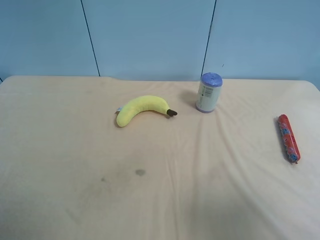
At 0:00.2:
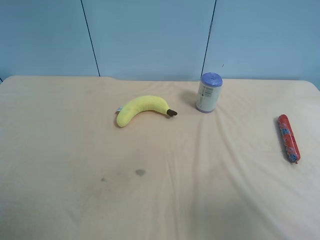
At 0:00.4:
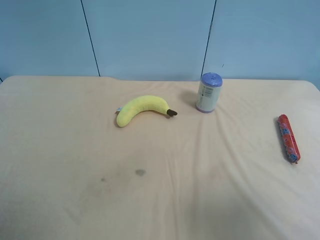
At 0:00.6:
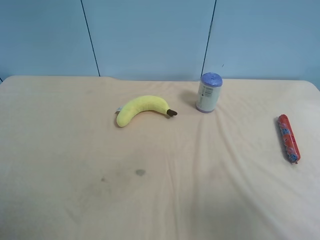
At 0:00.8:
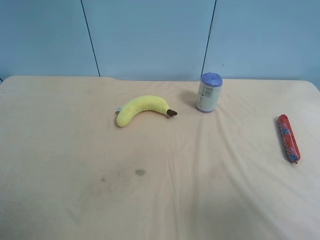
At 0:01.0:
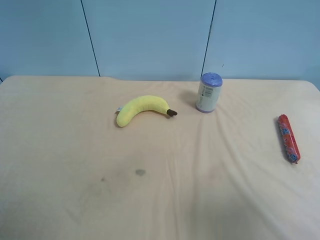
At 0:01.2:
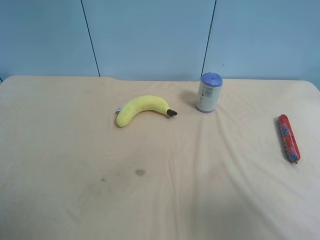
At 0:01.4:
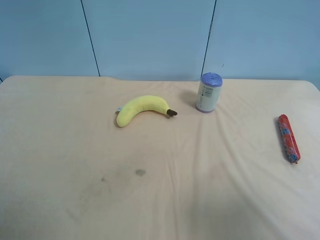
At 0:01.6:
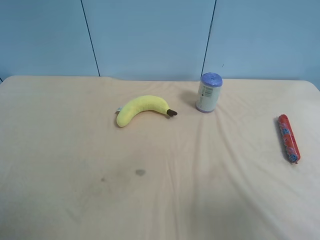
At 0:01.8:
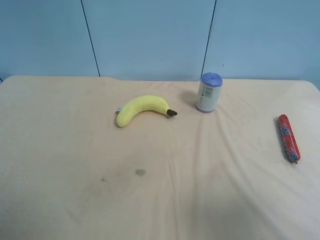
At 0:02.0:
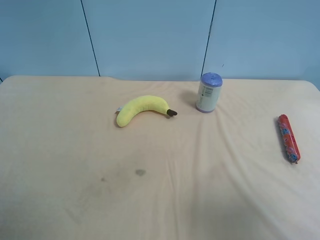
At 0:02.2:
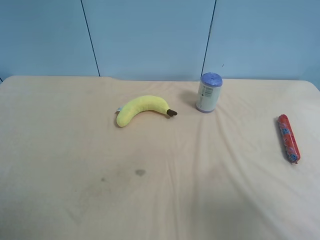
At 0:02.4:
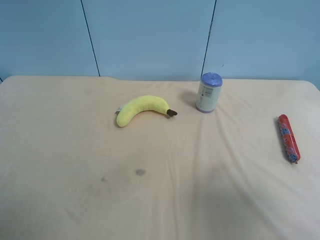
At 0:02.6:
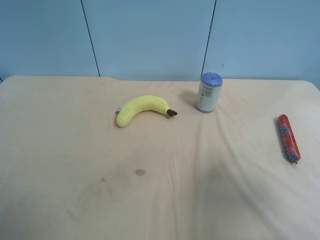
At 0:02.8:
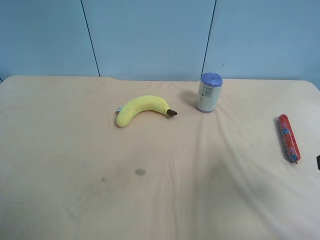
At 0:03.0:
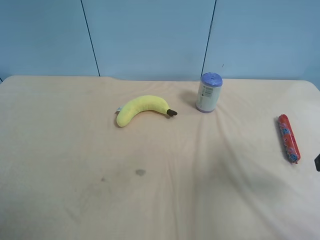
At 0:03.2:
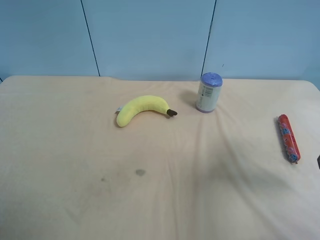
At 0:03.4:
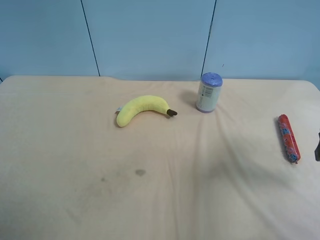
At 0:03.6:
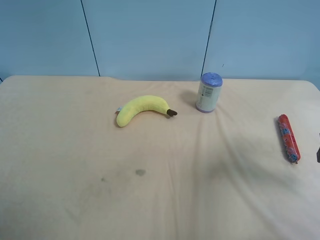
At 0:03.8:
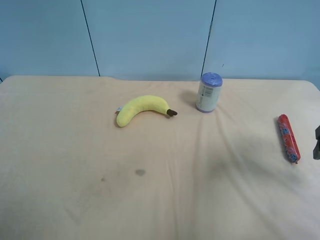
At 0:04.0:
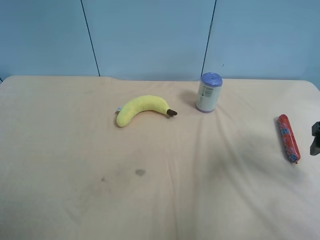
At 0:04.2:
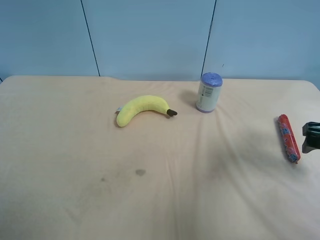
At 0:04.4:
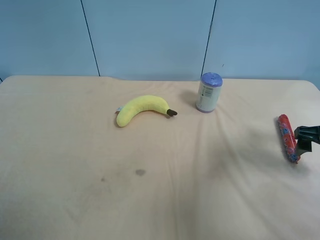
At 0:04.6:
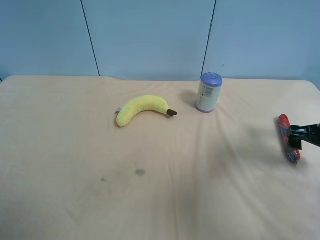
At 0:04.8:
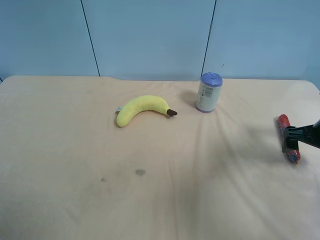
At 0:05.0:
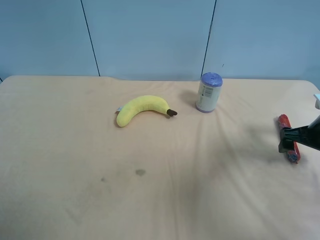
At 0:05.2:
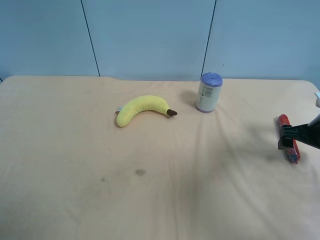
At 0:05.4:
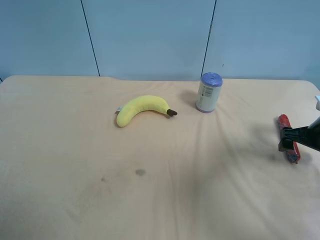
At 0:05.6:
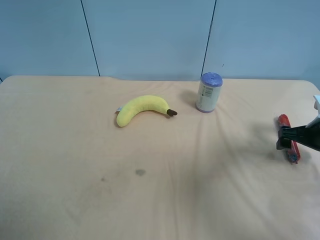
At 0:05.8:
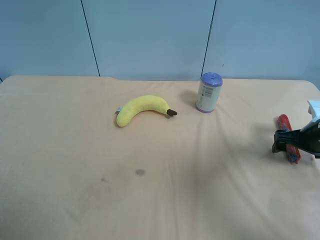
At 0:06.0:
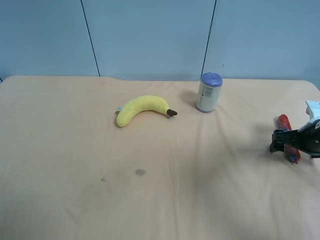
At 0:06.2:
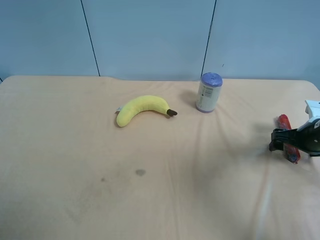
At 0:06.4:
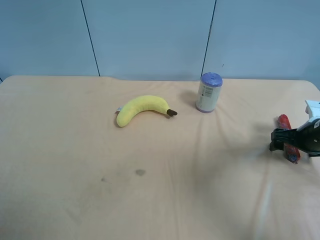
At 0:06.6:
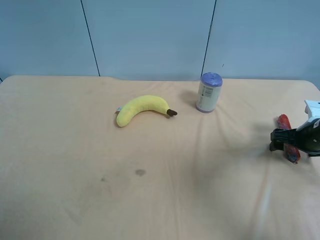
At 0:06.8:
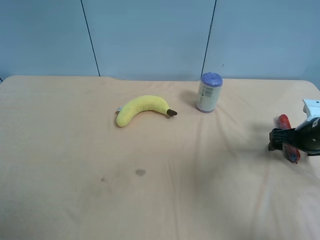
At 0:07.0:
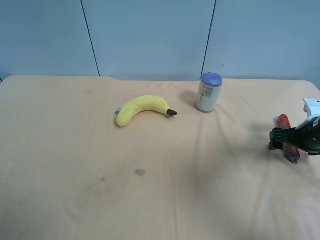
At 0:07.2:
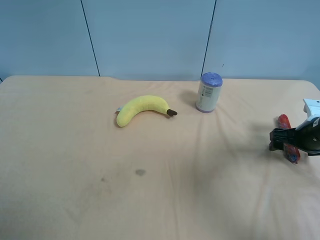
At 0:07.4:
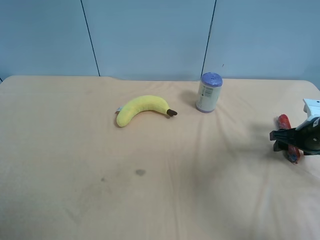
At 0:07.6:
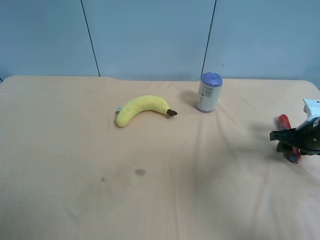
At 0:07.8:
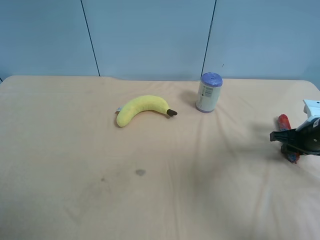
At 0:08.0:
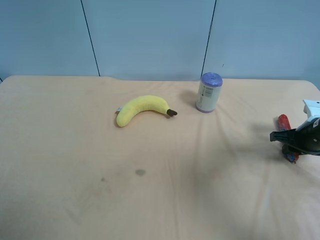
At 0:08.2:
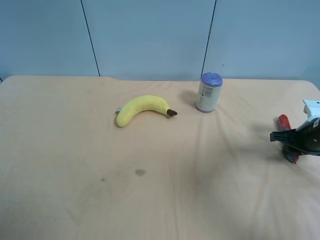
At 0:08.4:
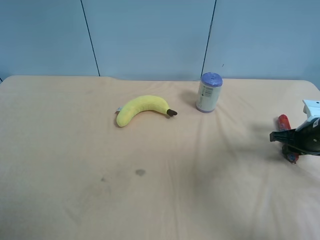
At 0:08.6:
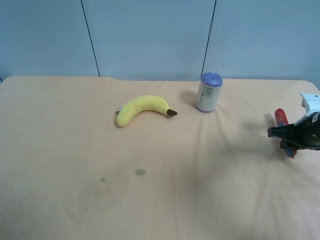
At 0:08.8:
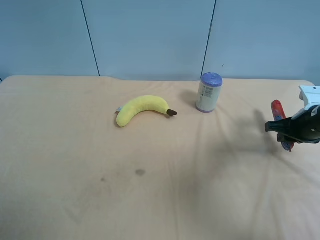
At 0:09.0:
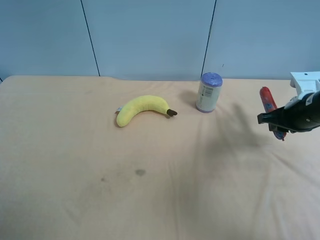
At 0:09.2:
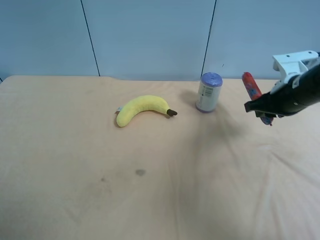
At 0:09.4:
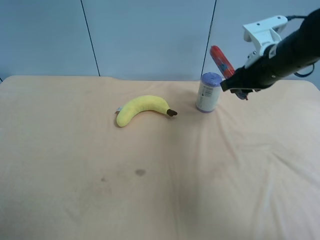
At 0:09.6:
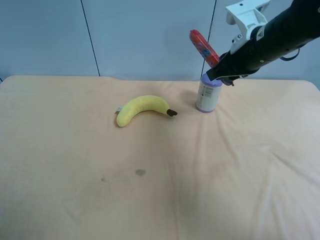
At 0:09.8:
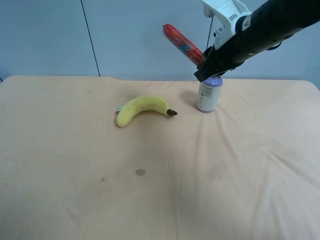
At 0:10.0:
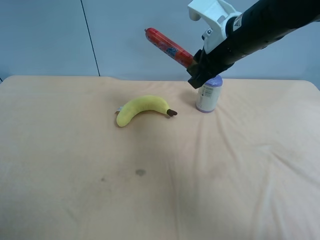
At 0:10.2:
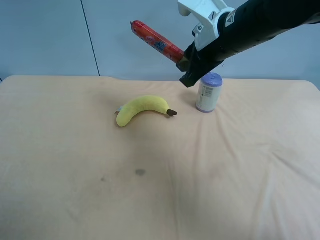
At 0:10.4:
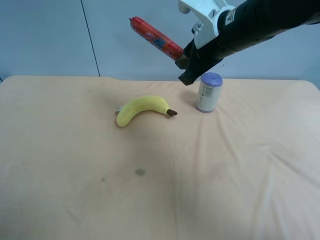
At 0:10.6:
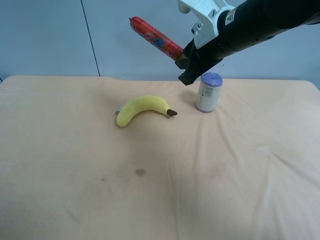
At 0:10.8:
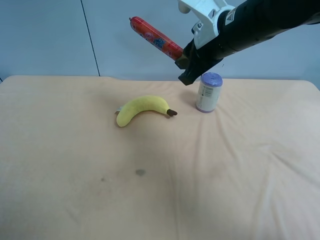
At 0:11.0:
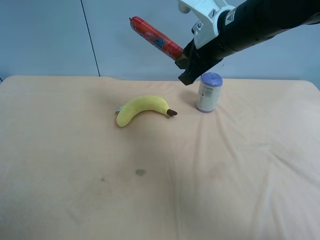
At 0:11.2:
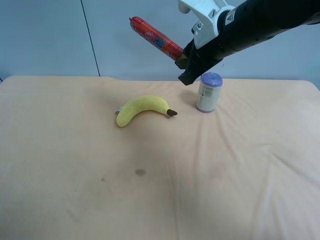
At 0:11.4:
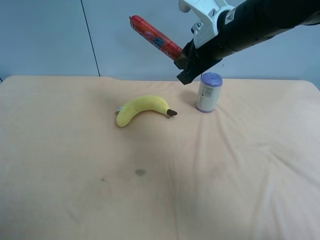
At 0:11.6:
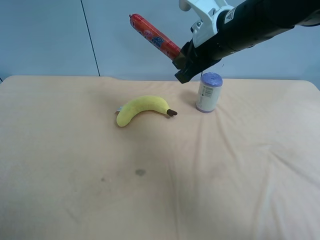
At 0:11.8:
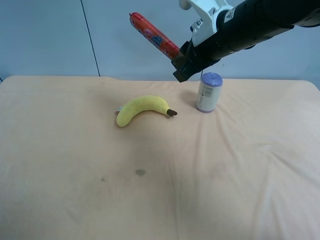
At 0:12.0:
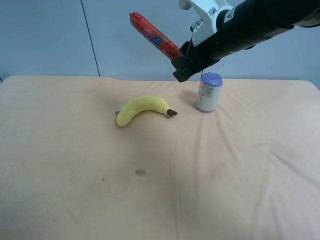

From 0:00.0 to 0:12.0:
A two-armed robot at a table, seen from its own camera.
Task of the whole recording: use the right gripper to pick up the item and transfer it from the right gripper to the left gripper.
From 0:00.0 to 0:01.6: Both grippers stay about where they are.
From 0:01.6 to 0:03.0: The right gripper goes about 15 cm forward.
From 0:03.0 to 0:04.4: The right gripper moves forward, downward and to the right, about 15 cm.
From 0:04.4 to 0:06.0: The right gripper shifts roughly 5 cm downward.
From 0:06.0 to 0:07.6: The right gripper closes up.
From 0:07.6 to 0:09.0: The right gripper shifts approximately 10 cm upward and to the left.
From 0:09.0 to 0:10.4: The right gripper shifts about 20 cm to the left and upward.
From 0:10.4 to 0:12.0: The grippers move only a little.

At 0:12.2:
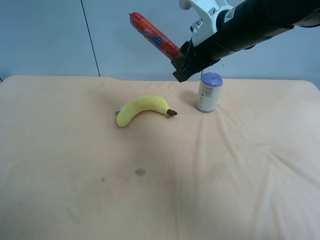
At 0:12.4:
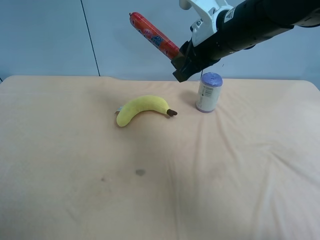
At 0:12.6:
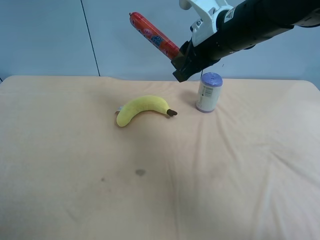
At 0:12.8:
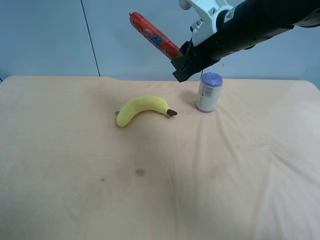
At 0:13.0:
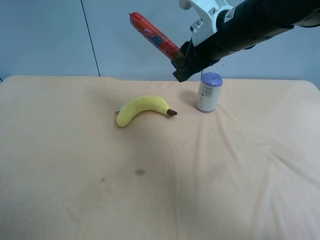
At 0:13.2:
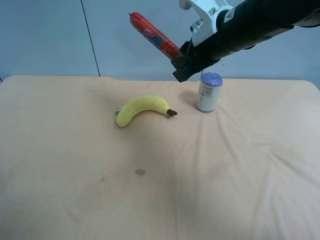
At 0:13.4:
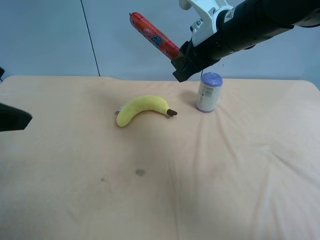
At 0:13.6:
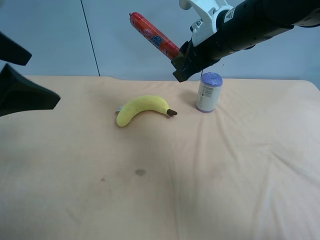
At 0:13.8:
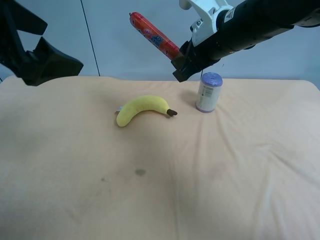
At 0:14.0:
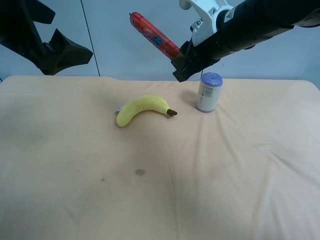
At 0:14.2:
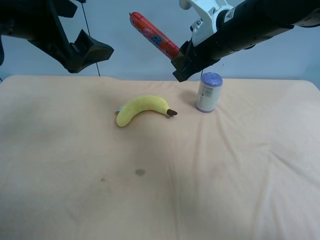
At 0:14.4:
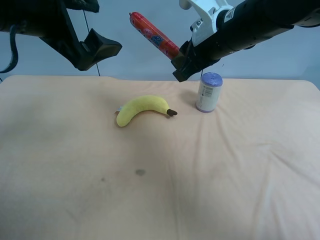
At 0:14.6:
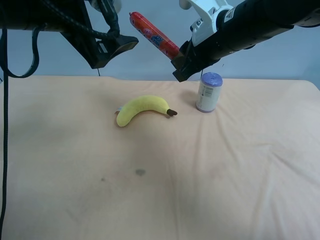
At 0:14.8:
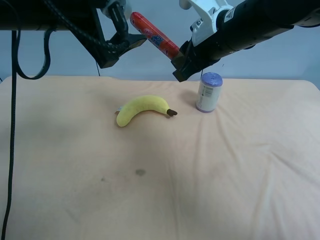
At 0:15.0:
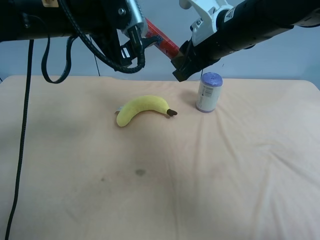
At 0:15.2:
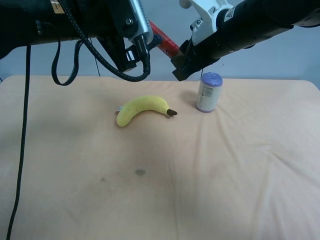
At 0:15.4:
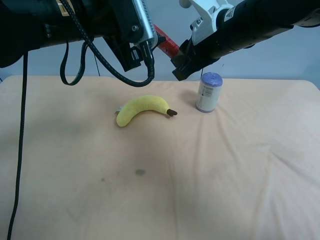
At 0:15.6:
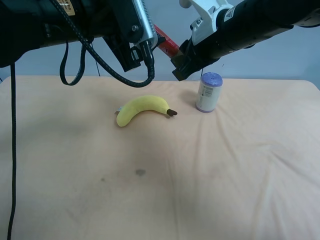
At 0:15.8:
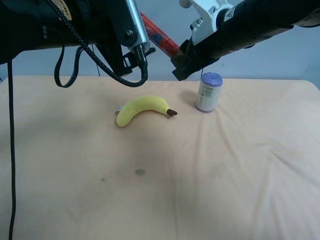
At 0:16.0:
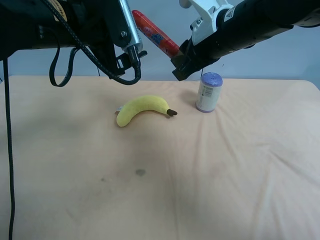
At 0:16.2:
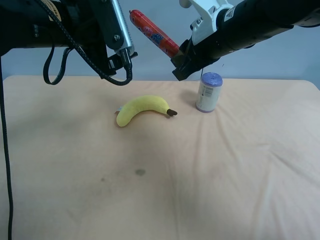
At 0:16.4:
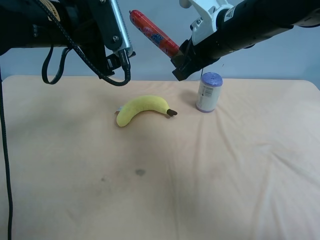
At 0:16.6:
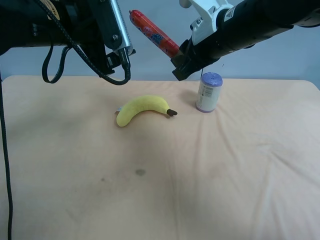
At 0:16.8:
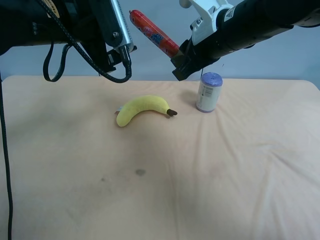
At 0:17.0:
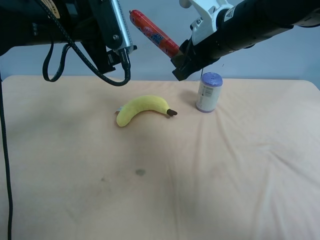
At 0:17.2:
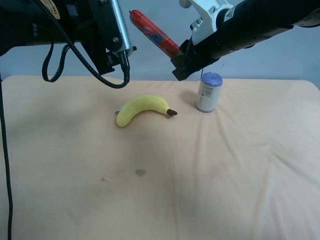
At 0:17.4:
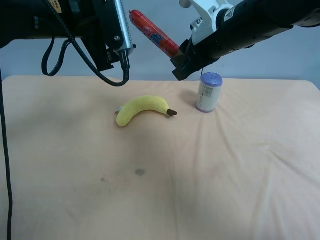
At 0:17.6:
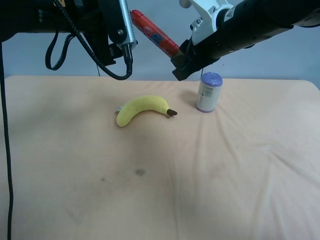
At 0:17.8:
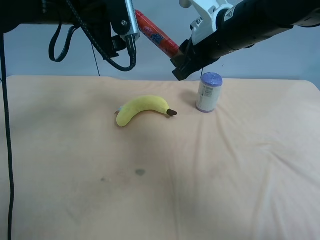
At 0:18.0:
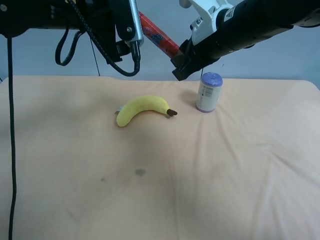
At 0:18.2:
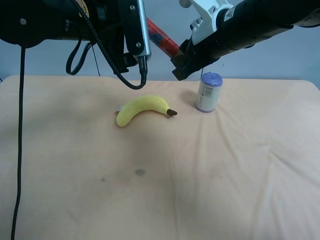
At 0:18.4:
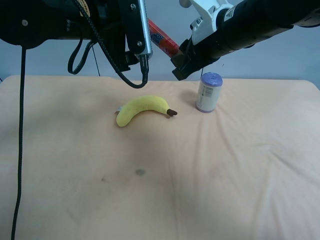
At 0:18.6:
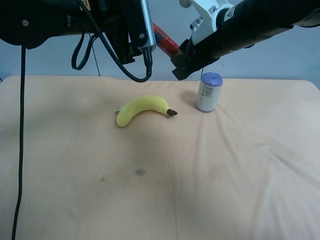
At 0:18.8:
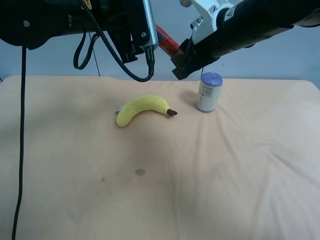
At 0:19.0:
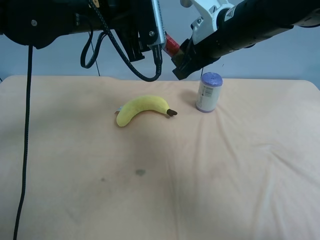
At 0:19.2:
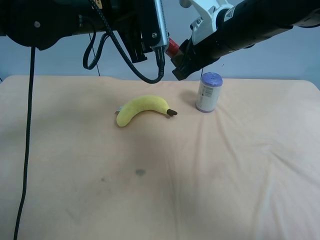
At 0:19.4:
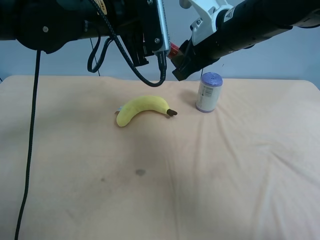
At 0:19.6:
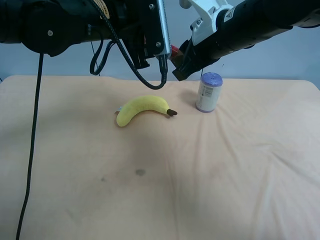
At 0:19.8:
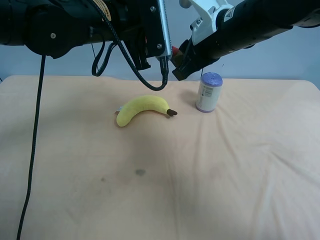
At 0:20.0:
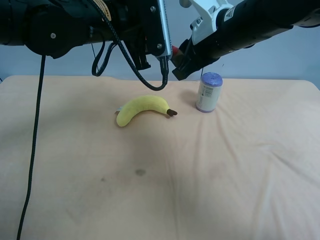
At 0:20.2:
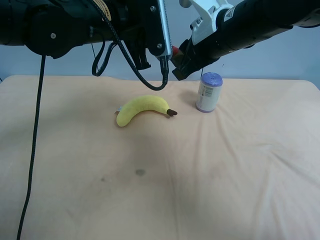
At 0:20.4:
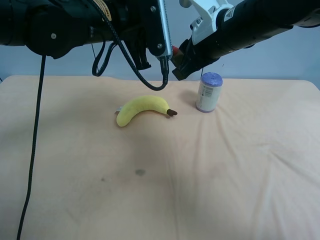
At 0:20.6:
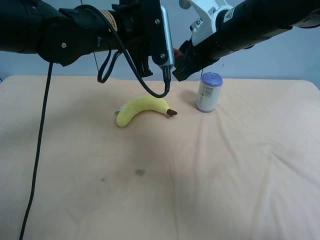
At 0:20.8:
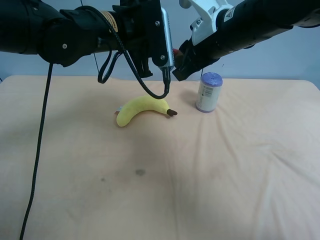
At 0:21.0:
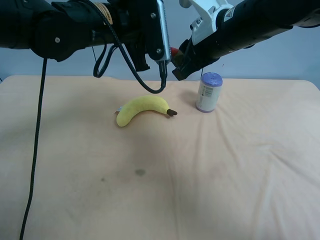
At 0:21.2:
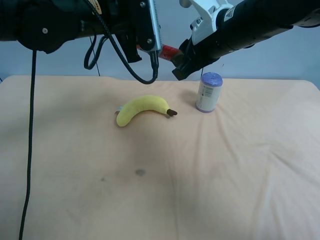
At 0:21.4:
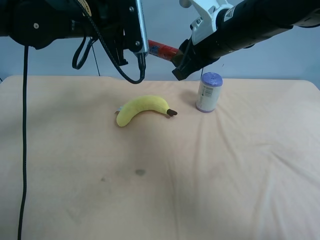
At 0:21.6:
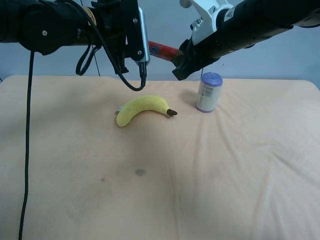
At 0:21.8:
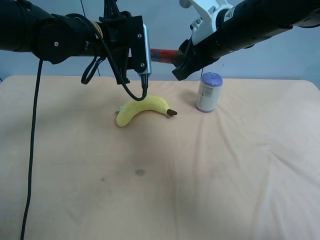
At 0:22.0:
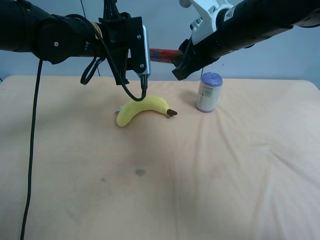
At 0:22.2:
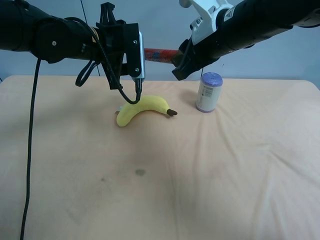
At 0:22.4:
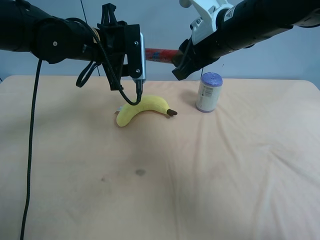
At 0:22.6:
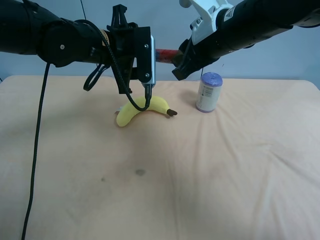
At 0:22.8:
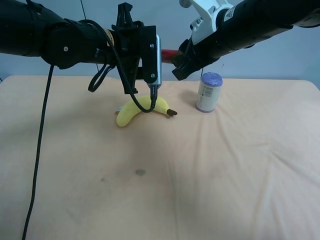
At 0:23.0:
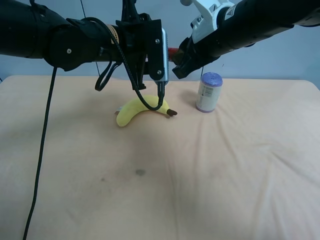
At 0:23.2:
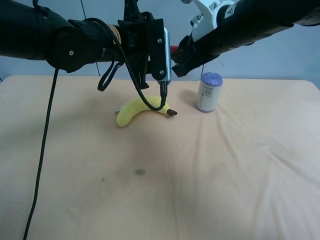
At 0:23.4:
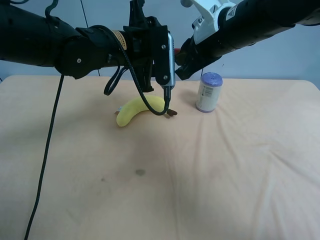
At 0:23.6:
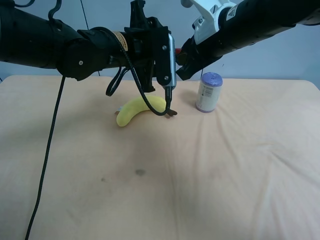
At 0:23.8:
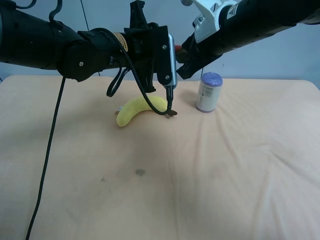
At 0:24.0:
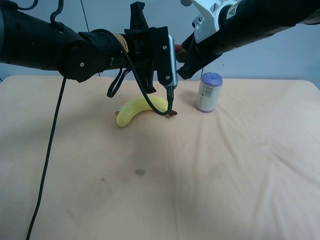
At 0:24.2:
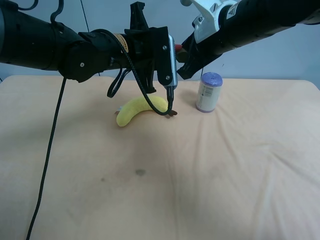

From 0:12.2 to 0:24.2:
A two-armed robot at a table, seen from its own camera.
Task of the whole recording: use the right gripper to pick up the item and transfer it from the right gripper to the left gripper.
From 0:12.2 to 0:13.8: The left gripper is displaced forward and to the right by some 25 cm.
From 0:13.8 to 0:15.2: The left gripper shifts approximately 10 cm to the right and forward.
From 0:15.2 to 0:18.2: The grippers move only a little.
From 0:18.2 to 0:21.2: The grippers make only small movements.
From 0:21.2 to 0:22.6: The left gripper is displaced downward by about 5 cm.
From 0:22.6 to 0:24.2: The left gripper closes up.
